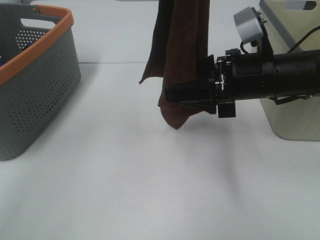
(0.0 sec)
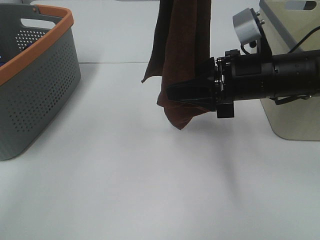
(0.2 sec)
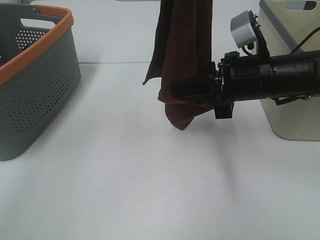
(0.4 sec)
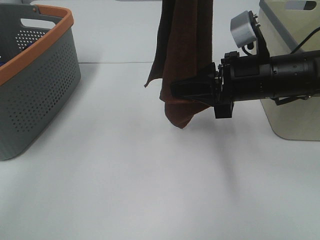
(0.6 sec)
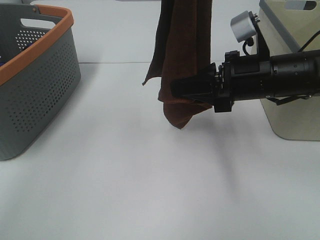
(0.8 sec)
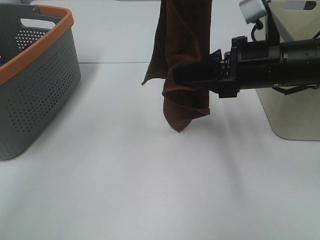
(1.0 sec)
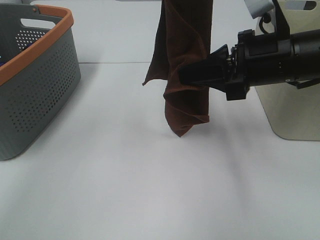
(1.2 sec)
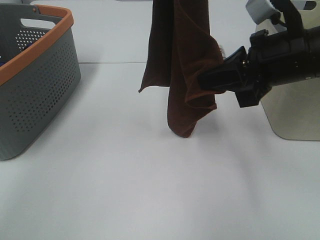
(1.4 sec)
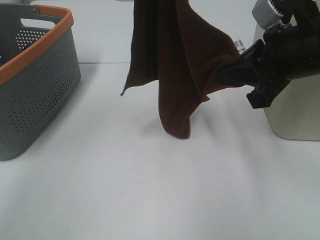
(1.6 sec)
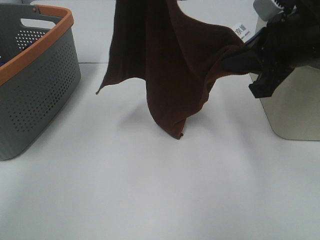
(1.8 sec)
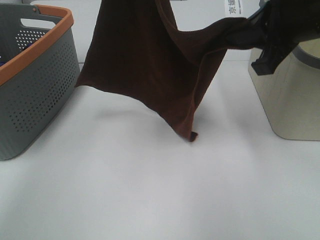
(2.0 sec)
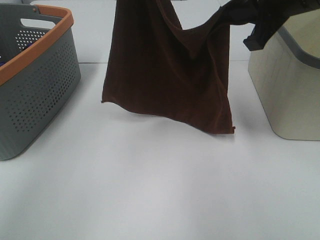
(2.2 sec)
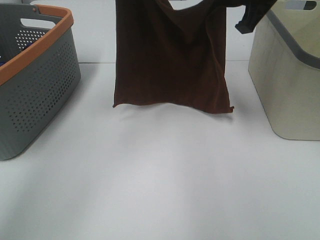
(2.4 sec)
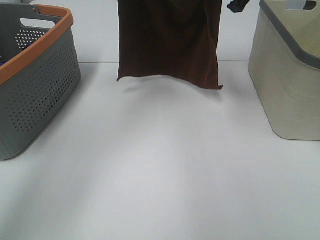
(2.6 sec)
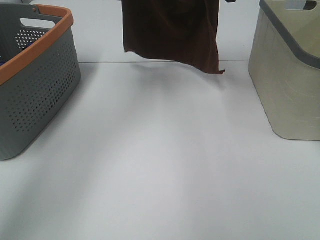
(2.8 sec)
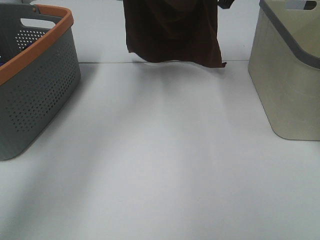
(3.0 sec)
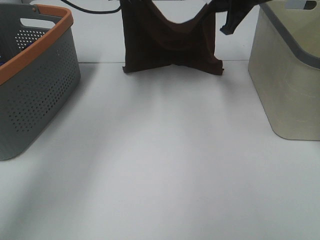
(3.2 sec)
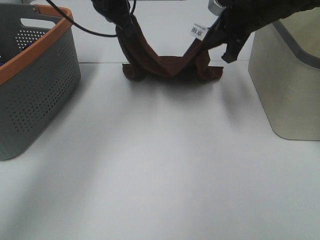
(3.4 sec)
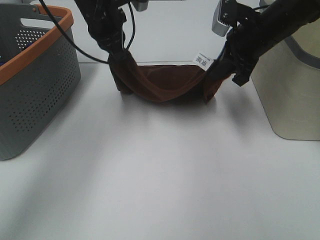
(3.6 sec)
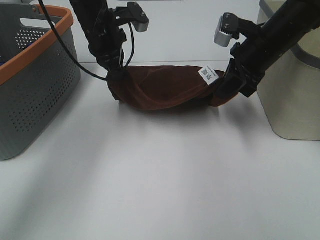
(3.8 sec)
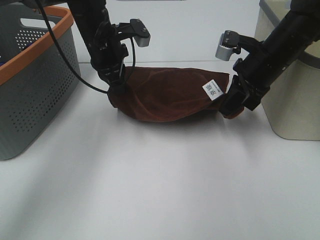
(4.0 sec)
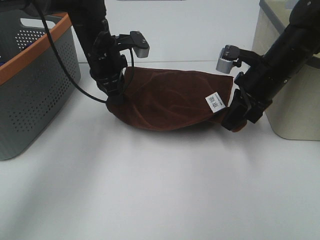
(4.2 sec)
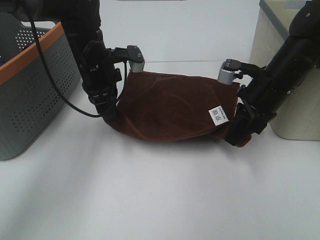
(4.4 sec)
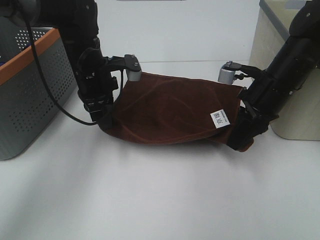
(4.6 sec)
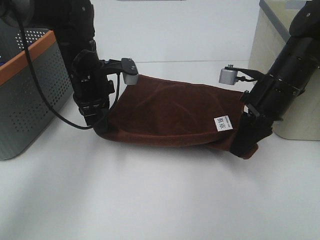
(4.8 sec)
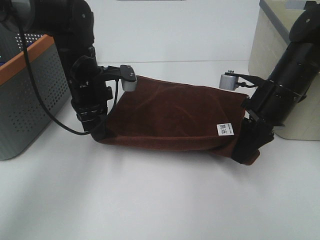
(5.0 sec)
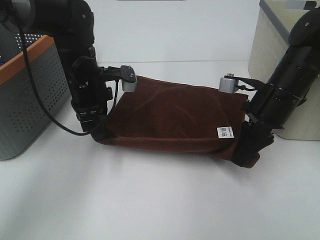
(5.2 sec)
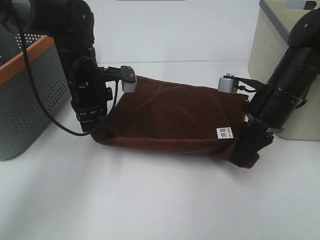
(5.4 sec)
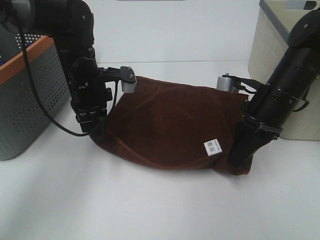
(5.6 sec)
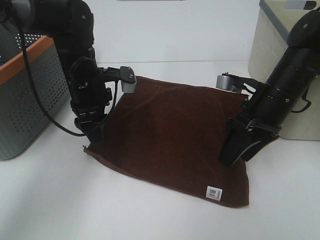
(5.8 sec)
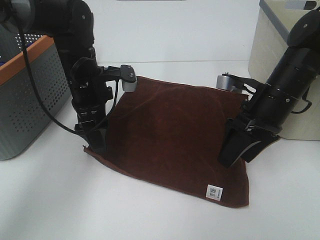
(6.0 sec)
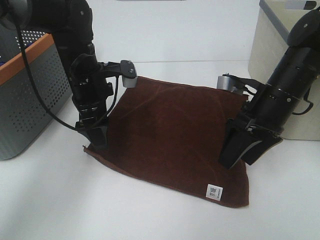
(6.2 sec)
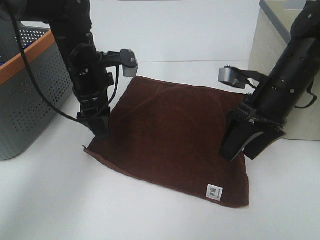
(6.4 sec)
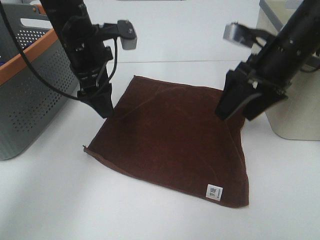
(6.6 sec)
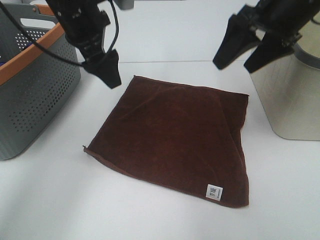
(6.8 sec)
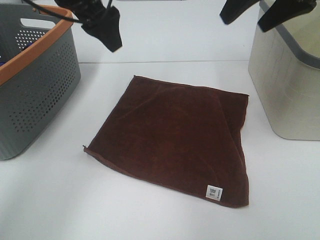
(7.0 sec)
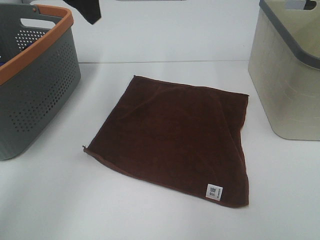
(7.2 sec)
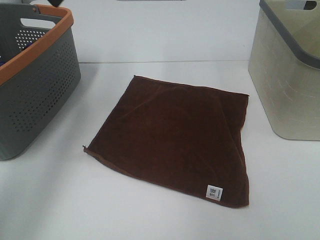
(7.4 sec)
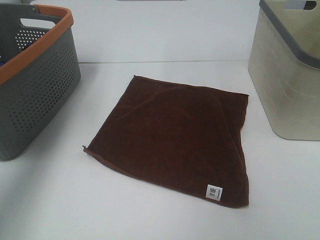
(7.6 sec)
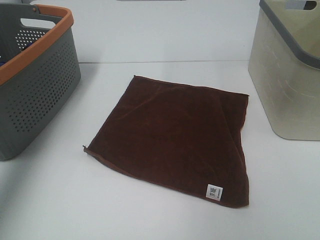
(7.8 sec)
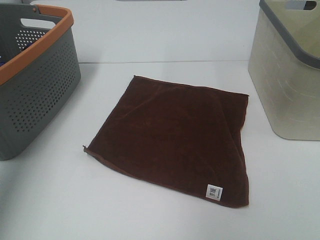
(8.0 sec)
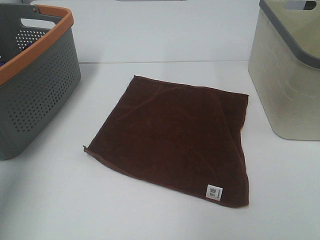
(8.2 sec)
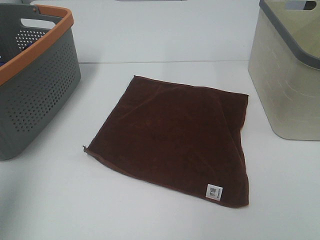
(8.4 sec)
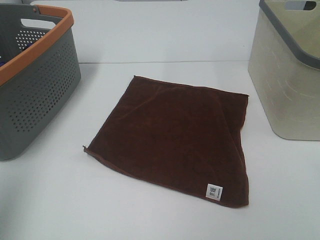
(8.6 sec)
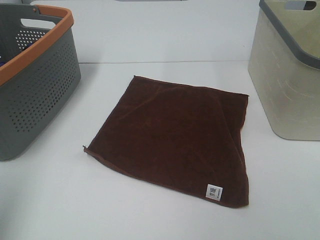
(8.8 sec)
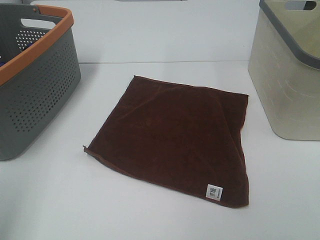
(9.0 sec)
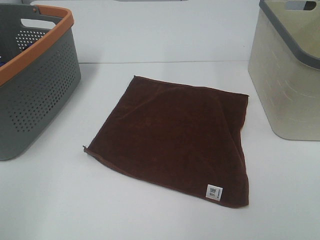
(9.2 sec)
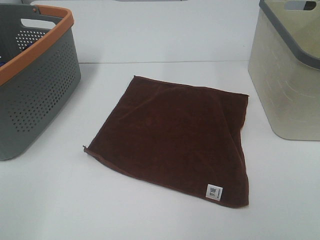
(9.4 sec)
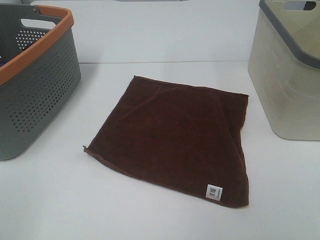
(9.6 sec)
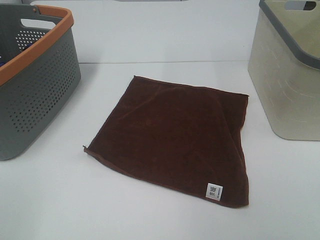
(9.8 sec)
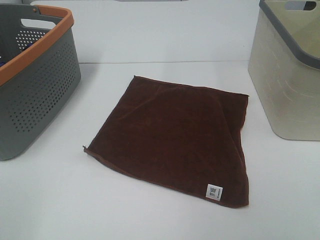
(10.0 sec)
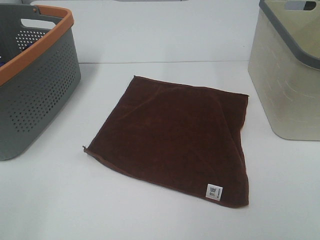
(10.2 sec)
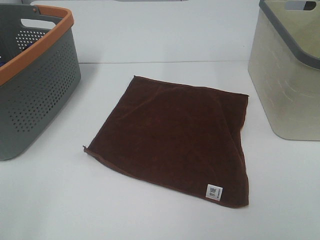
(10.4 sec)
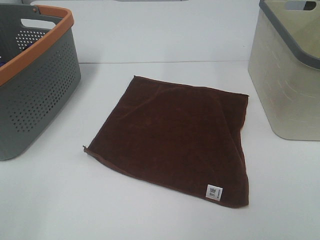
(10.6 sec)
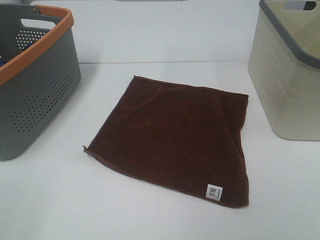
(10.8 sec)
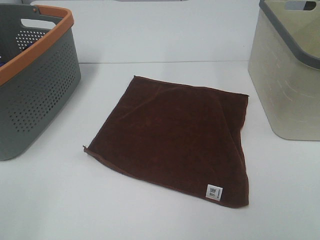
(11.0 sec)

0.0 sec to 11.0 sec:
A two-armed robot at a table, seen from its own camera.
Task of the whole recording: Remove the towel and place it.
0.0 sec to 1.6 sec: The right gripper travels upward by about 5 cm, and closes.
1.6 sec to 3.2 sec: The right gripper heads forward, covering about 20 cm; the left gripper travels downward and forward by some 25 cm.
3.2 sec to 4.8 sec: The left gripper shifts roughly 20 cm downward and backward. Meanwhile the right gripper heads backward and downward, covering approximately 20 cm.
4.8 sec to 6.2 sec: The right gripper opens its fingers. The left gripper opens.
6.2 sec to 7.8 sec: The right gripper goes approximately 35 cm upward and to the right. The left gripper is displaced upward and to the left by about 35 cm.
7.8 sec to 9.4 sec: The left gripper travels backward by about 35 cm.

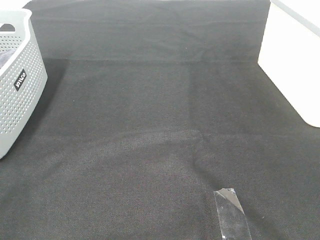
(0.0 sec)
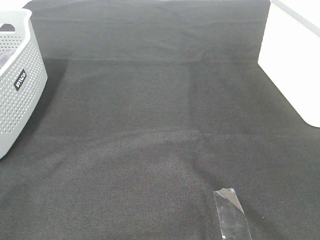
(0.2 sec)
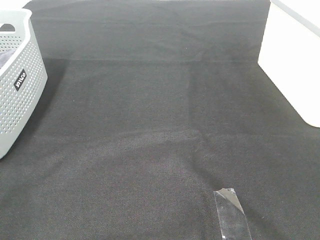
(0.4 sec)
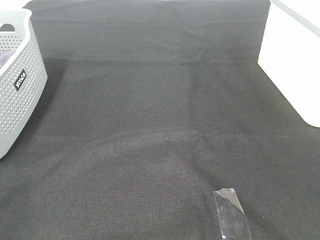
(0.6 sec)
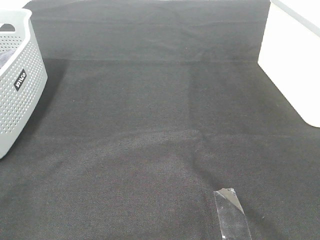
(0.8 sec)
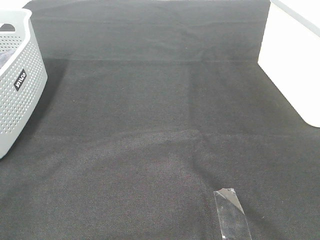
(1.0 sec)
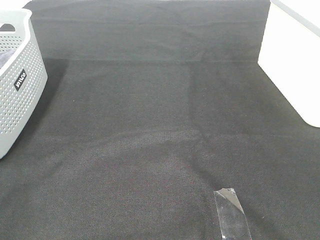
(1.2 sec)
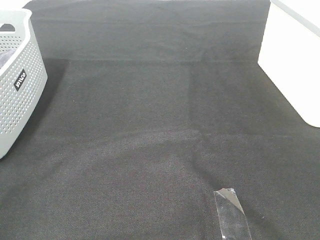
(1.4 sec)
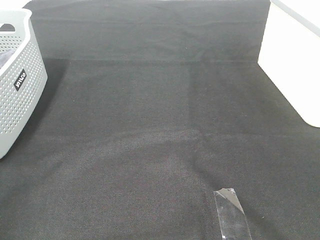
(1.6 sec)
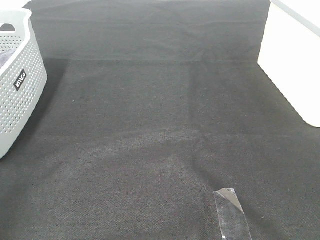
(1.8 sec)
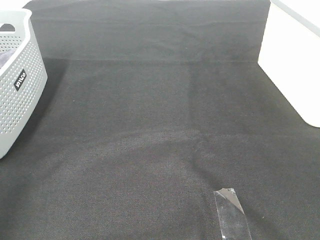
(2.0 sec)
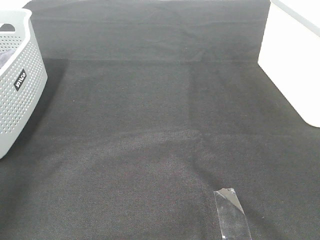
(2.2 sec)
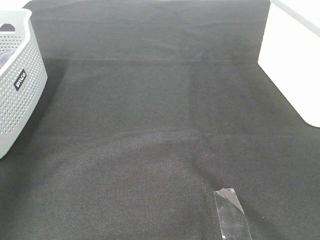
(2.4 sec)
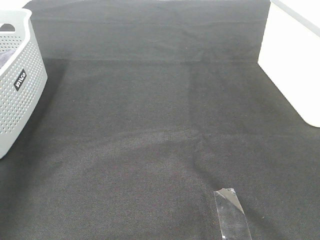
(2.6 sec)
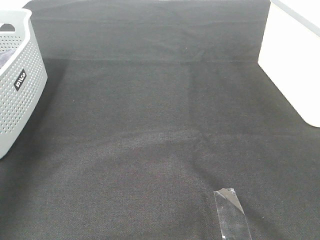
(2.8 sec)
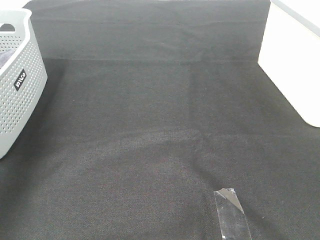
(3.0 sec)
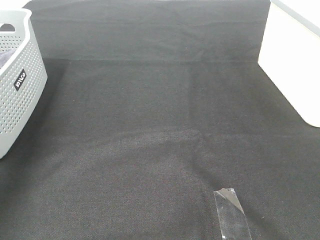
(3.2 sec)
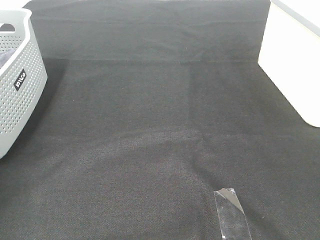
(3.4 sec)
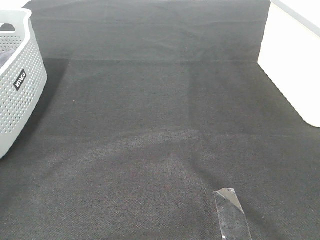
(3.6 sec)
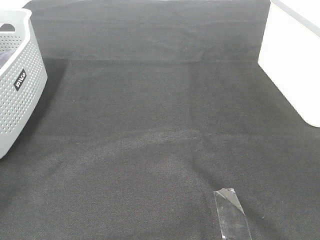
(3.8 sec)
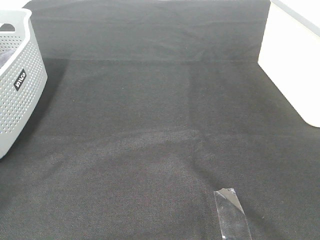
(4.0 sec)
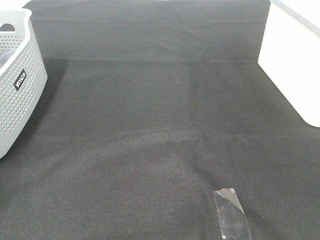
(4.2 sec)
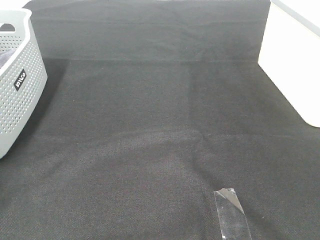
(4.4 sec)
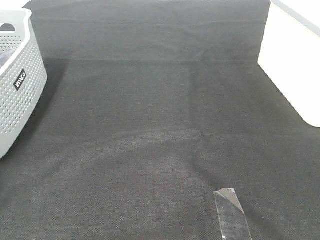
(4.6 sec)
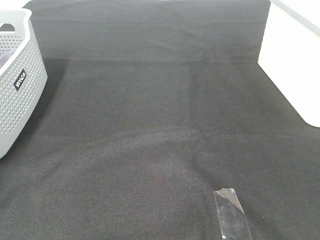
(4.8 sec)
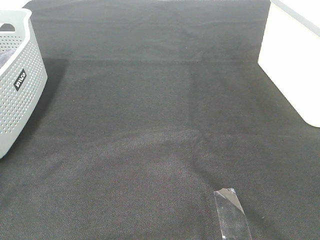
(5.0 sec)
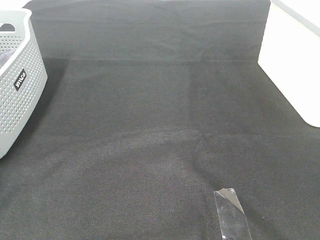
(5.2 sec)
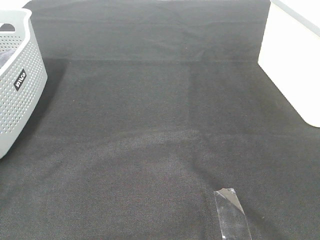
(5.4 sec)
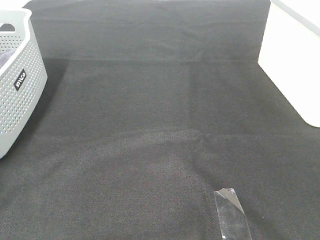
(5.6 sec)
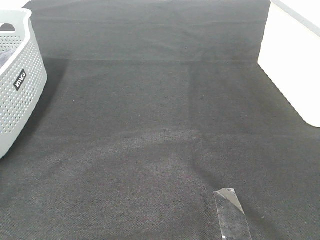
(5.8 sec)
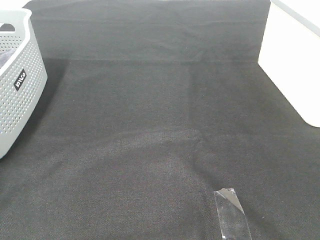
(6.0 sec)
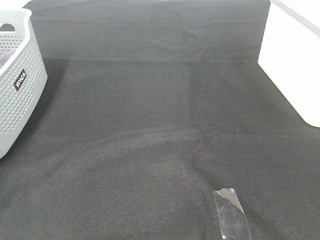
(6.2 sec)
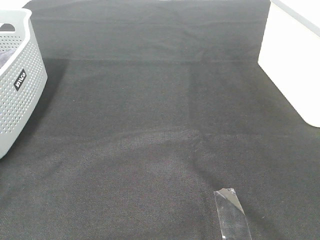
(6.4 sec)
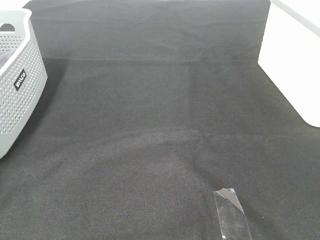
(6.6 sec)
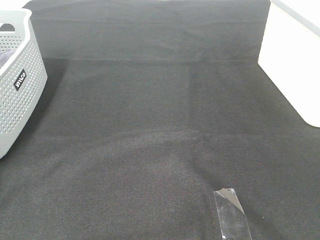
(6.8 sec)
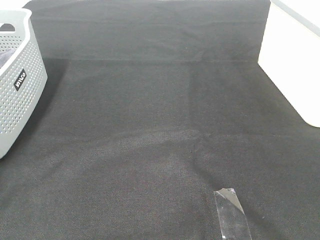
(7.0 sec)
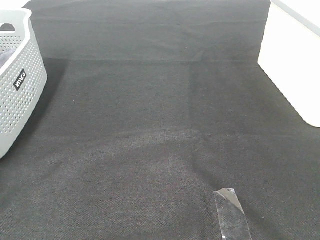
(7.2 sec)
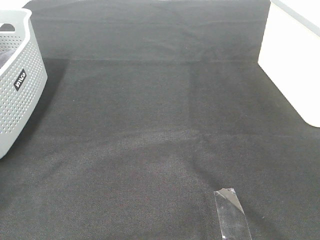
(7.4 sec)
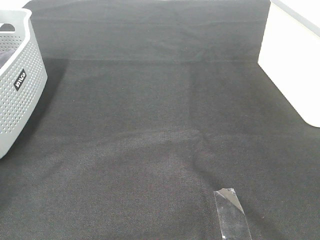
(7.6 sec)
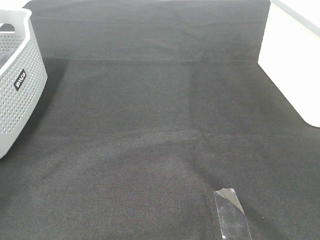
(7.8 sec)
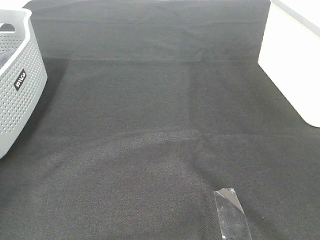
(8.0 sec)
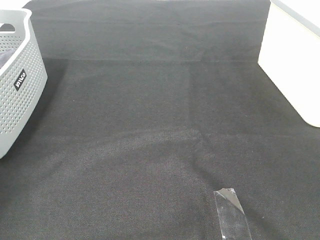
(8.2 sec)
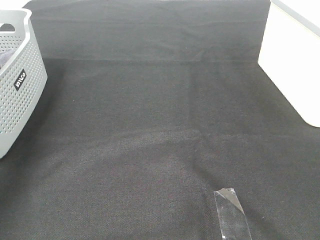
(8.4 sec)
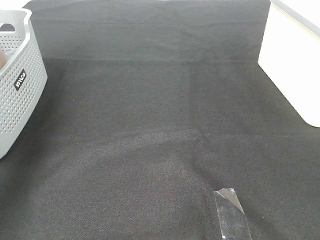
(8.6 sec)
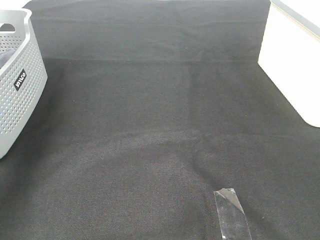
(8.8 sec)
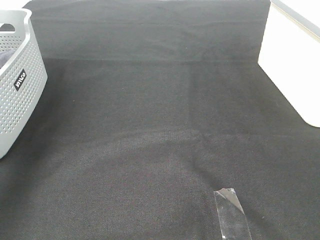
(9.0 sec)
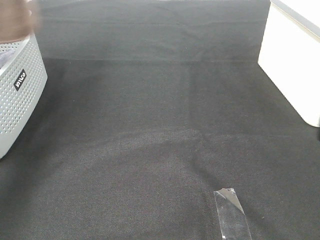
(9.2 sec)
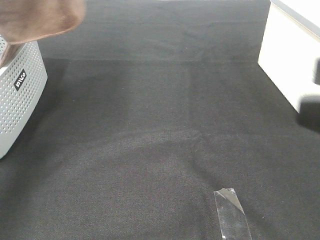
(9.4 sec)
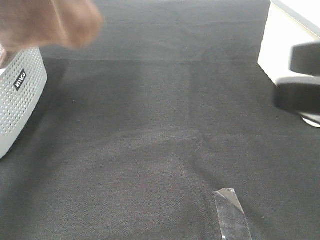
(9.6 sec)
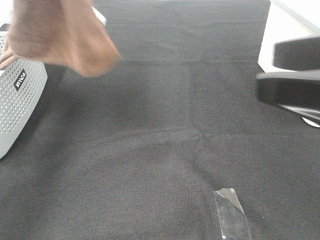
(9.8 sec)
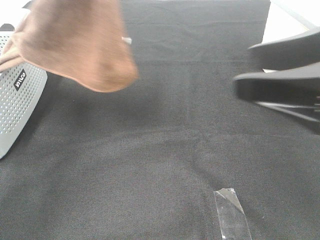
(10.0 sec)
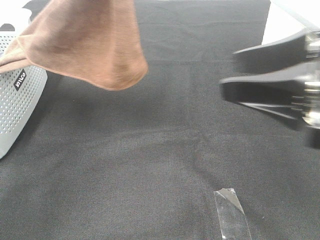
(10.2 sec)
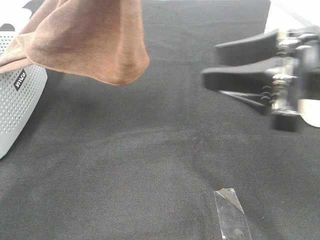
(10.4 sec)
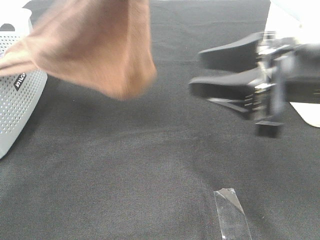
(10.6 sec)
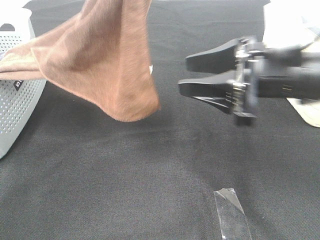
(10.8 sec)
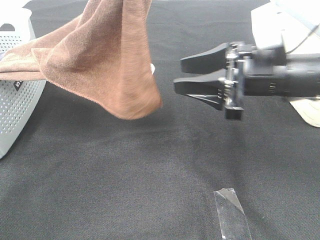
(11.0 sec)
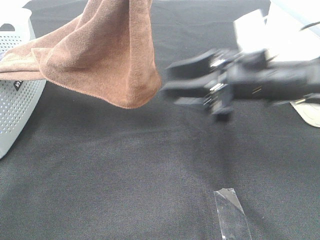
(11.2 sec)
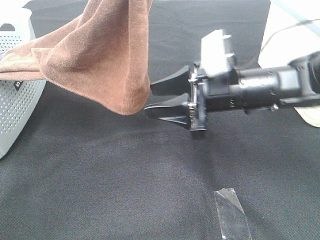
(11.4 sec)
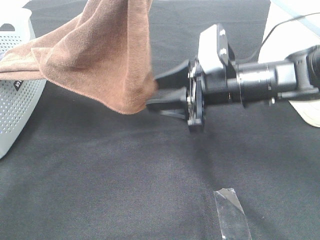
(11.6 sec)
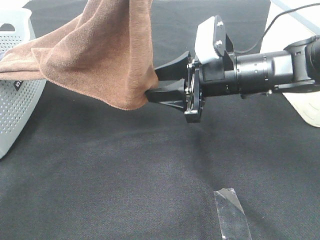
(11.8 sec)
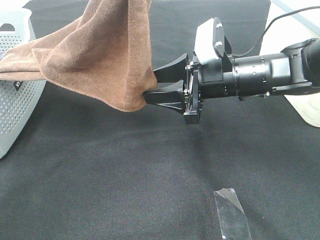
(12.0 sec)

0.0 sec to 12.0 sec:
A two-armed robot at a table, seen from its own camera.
Task of the whole recording: Remove the towel and place it.
Step, 9.6 sec to 11.8 sec: Right hand: grab a corner of the brown towel and straighten it.
1.6 sec to 3.0 sec: The left gripper goes approximately 30 cm forward.
3.0 sec to 4.4 sec: The left gripper travels to the left, downward and forward by approximately 20 cm.
7.6 sec to 9.0 sec: The left gripper is displaced upward and to the right by about 25 cm.
9.0 sec to 10.4 sec: The right gripper is displaced forward and downward by some 15 cm. The left gripper moves to the right, roughly 20 cm.
10.4 sec to 12.0 sec: The right gripper is displaced forward, downward and to the left by roughly 15 cm.
